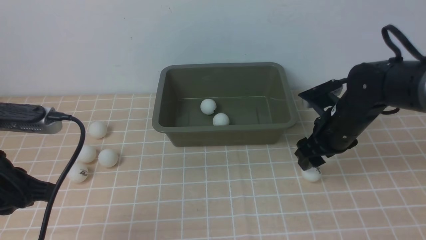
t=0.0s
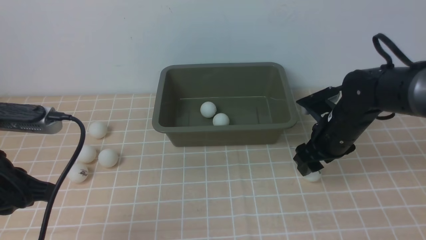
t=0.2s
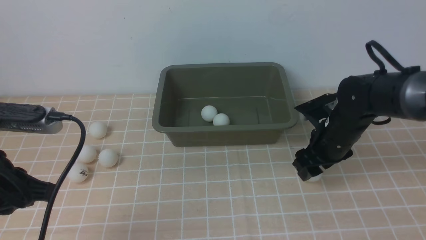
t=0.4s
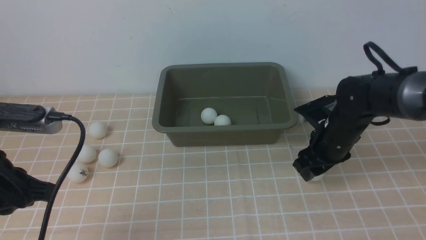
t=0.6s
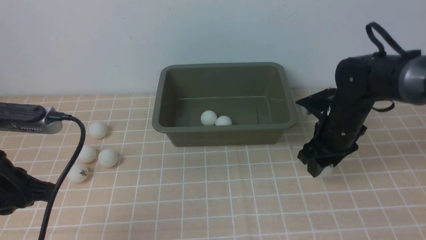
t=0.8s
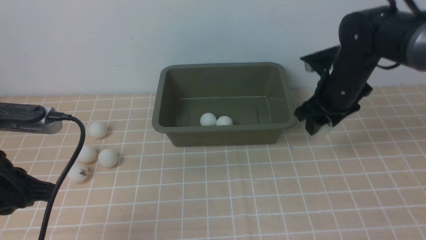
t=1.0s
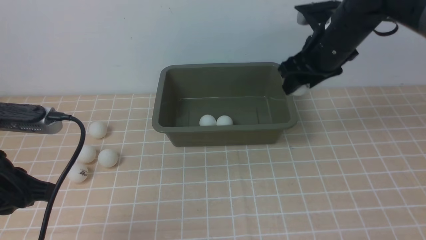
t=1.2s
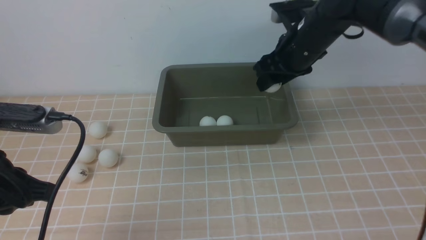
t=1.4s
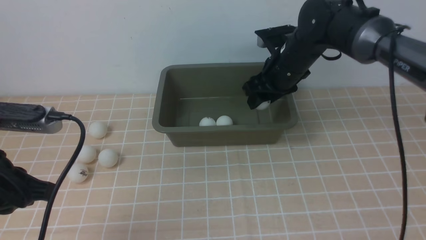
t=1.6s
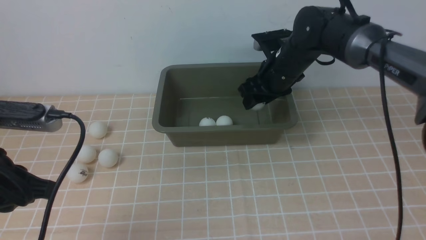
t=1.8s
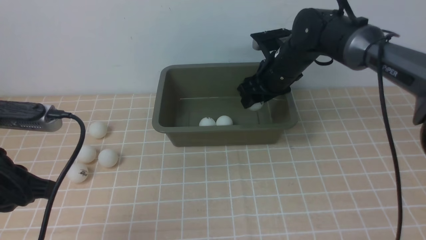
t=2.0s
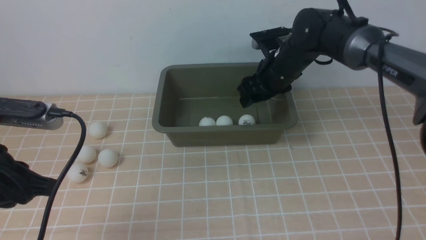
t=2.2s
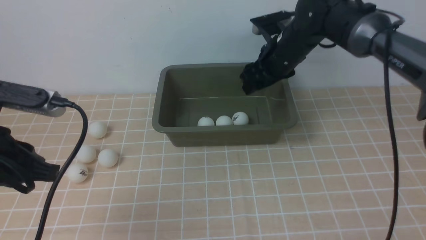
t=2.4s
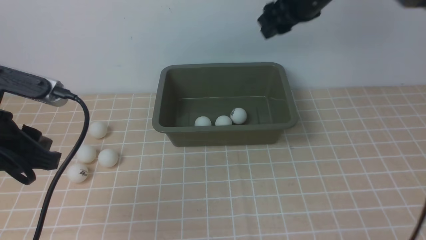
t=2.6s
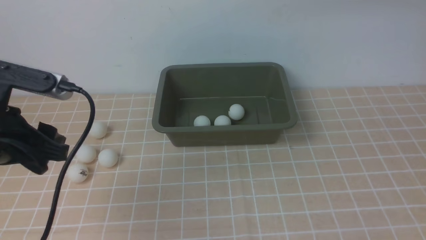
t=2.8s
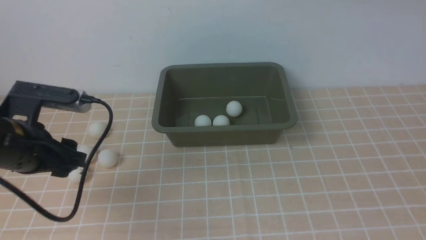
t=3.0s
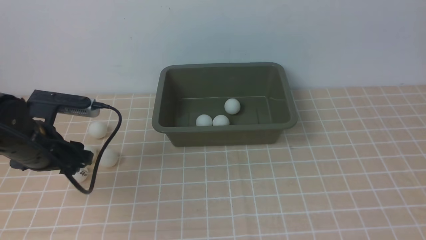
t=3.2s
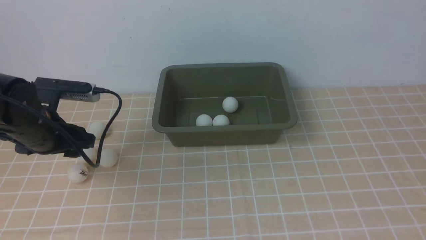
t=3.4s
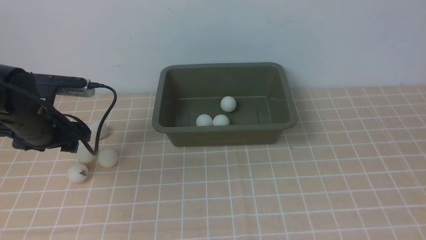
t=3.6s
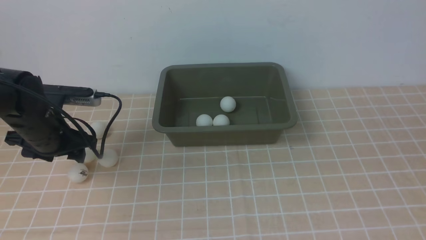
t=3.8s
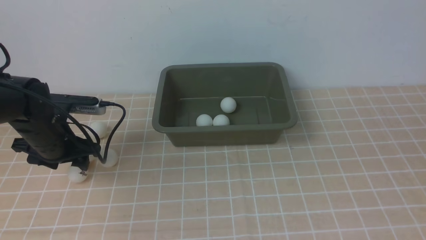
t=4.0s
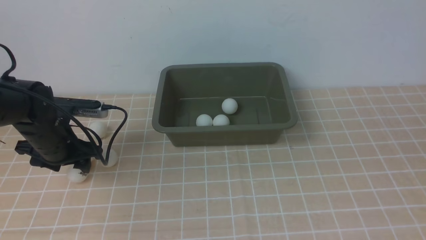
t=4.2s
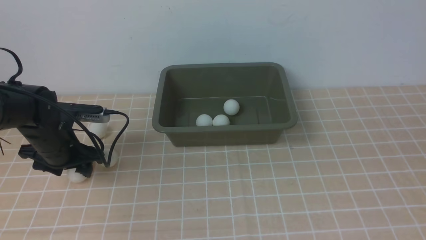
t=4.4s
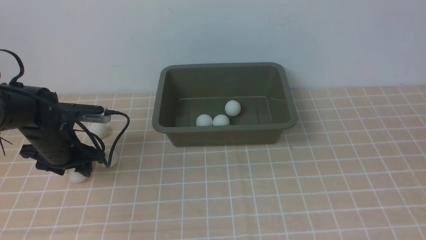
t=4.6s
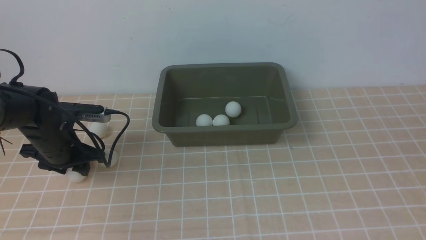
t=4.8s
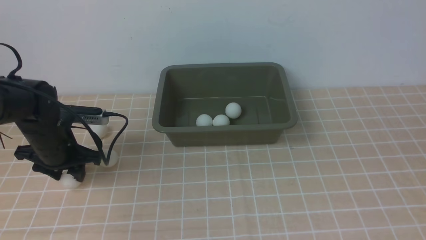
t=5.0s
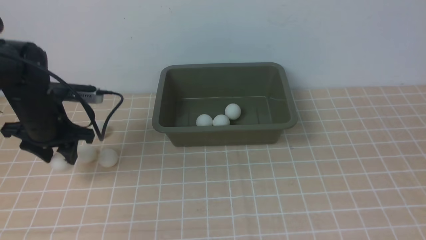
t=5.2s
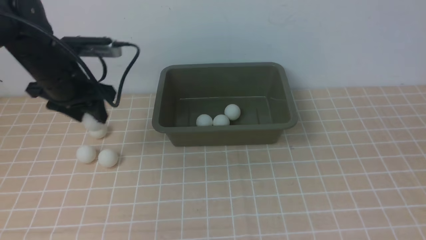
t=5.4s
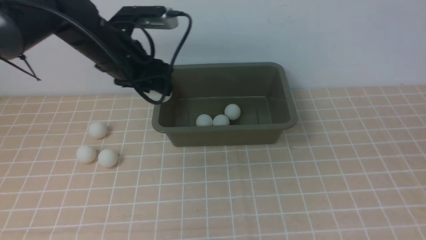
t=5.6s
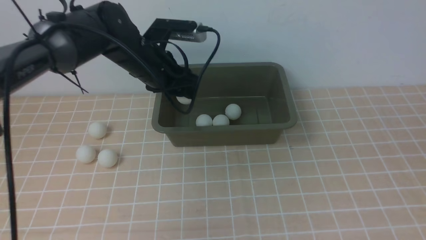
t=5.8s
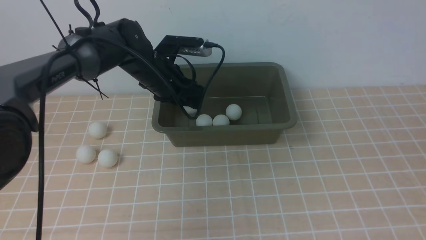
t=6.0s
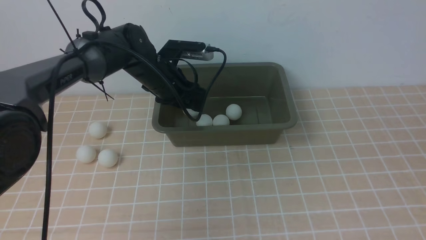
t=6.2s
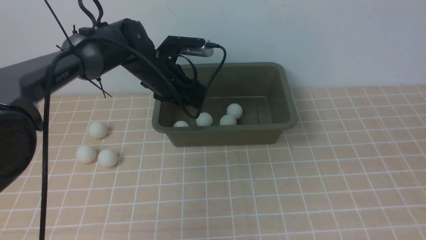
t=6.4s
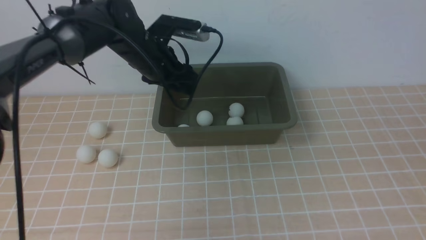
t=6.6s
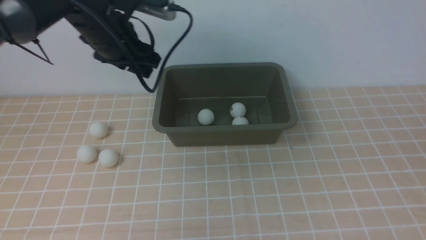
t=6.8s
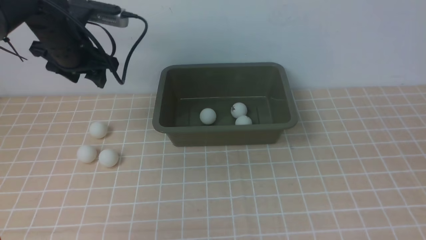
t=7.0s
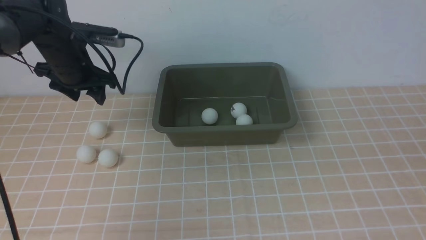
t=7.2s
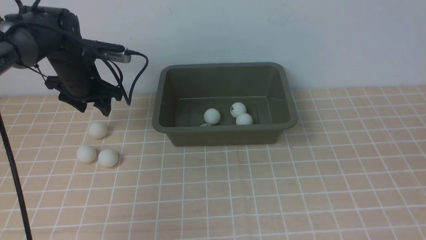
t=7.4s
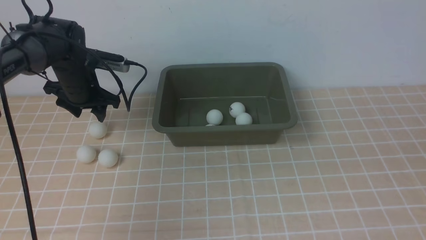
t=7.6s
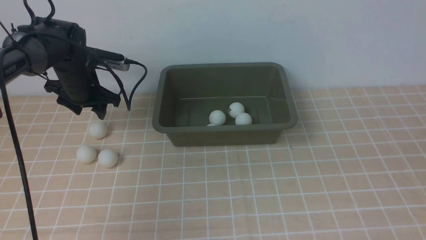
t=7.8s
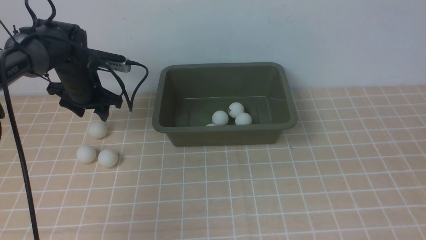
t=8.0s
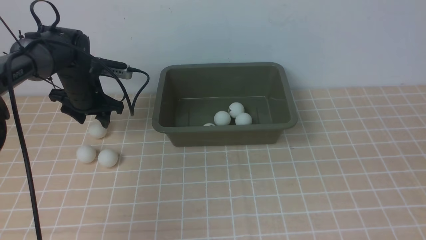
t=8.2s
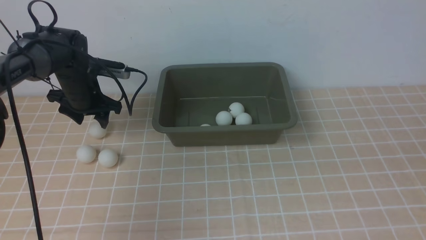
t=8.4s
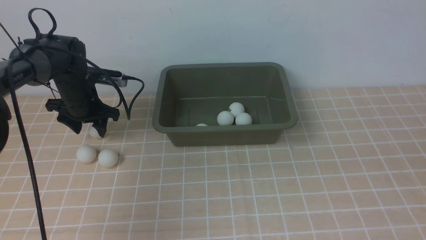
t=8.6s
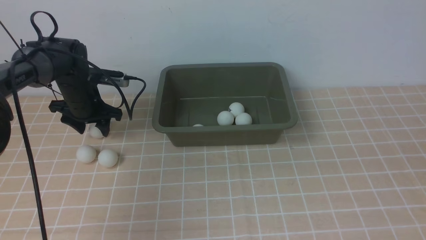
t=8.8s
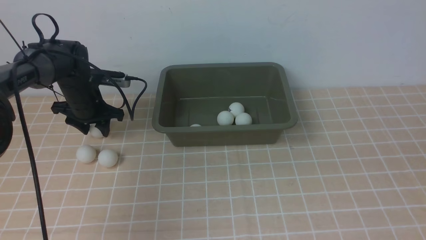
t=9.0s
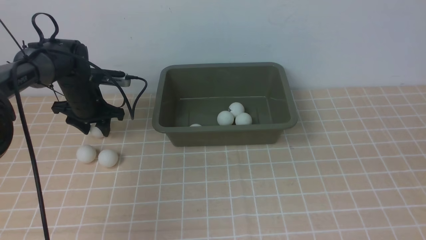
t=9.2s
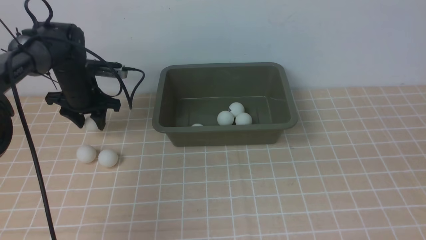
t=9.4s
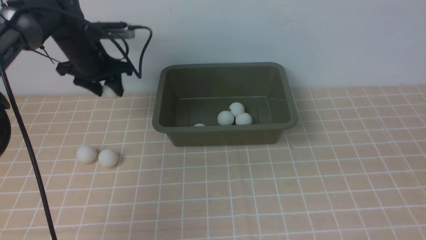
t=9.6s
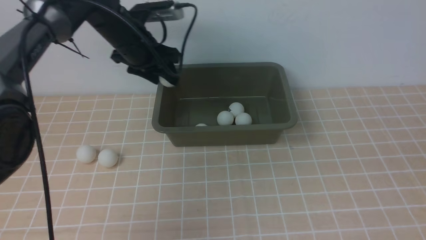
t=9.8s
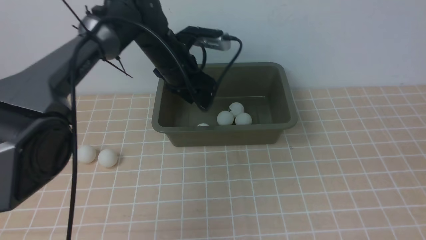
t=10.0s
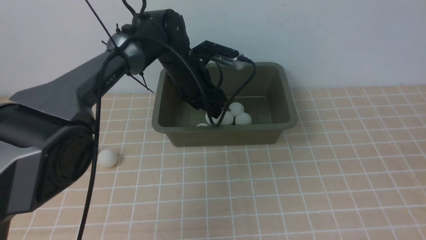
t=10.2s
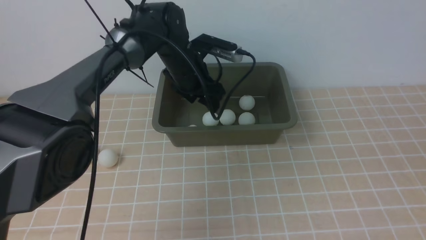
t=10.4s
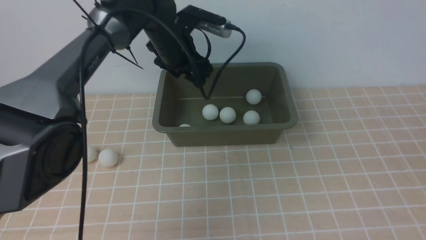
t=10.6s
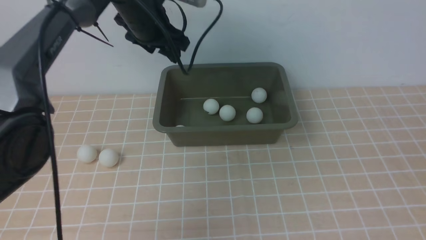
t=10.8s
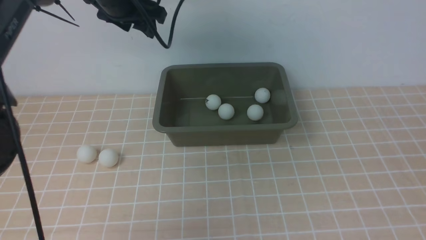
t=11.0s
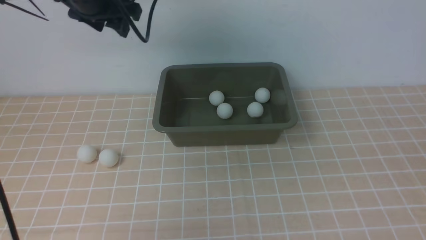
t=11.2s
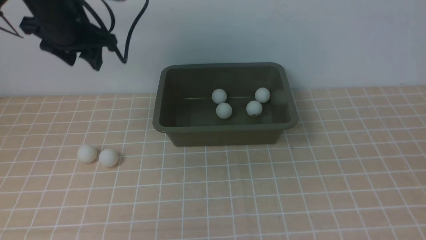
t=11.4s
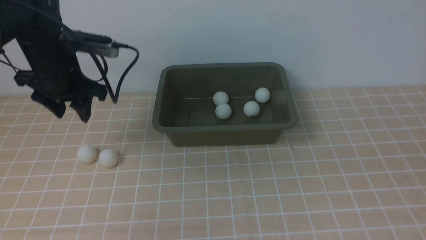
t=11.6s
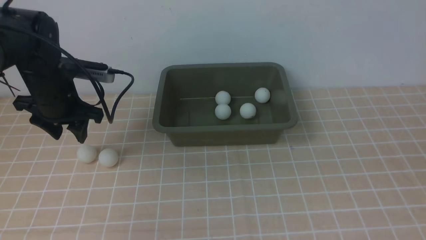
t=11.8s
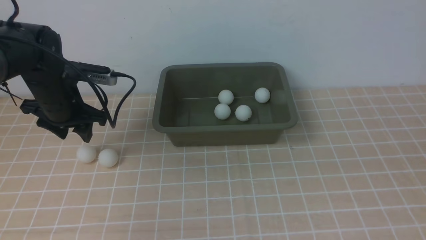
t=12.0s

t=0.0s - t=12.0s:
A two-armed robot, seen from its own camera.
Step, t=1.0s - t=2.0s: use the right arm to put the table tennis ball into the box.
Step, t=2.2s - t=5.0s: use the left arm to clamp the table tennis ball closest to it.
Step, t=5.4s - t=6.4s: use the left arm to put the table tennis ball into the box.
Step, t=6.8s - t=9.4s: use the left arm to clamp the table tennis ball closest to it.
Step, t=9.6s - t=10.4s: use the left arm to put the table tennis ball into the box.
t=0.0s - t=1.6s: The right gripper shifts about 15 cm forward, to the left and upward.
t=1.6s - t=3.0s: The left gripper moves forward, roughly 5 cm, and opens up. Meanwhile the right gripper is displaced upward, backward and to the right by some 30 cm.
t=3.0s - t=4.4s: The left gripper shifts some 15 cm downward and forward.
t=4.4s - t=6.0s: The left gripper moves to the right, forward and upward, about 20 cm.
t=6.0s - t=7.6s: The left gripper travels to the left by about 15 cm.
t=7.6s - t=9.0s: The left gripper goes about 5 cm downward.
t=9.0s - t=10.4s: The left gripper heads to the right, covering some 20 cm.
t=10.4s - t=12.0s: The left gripper shifts about 20 cm to the left and backward.

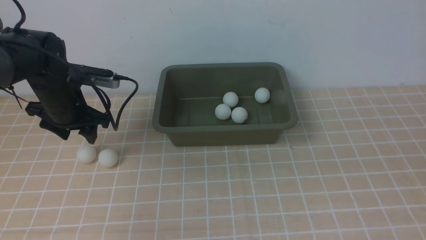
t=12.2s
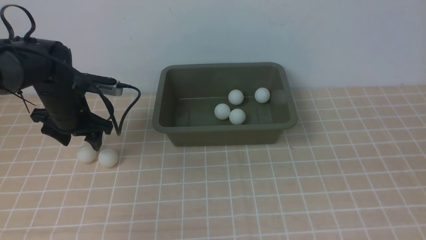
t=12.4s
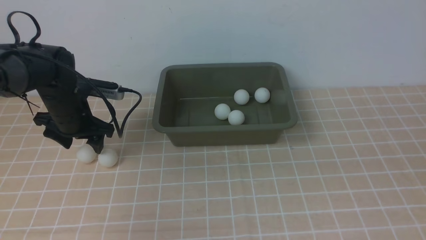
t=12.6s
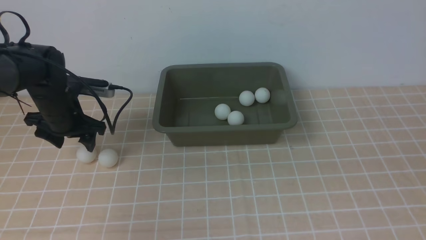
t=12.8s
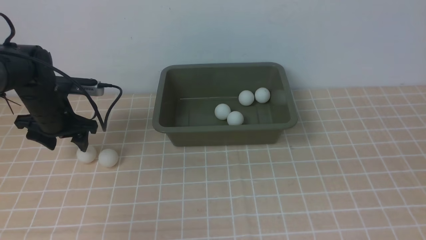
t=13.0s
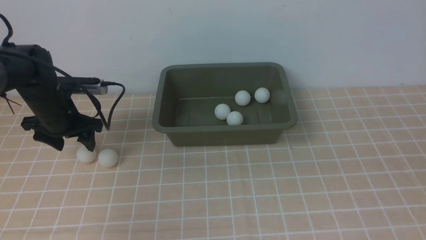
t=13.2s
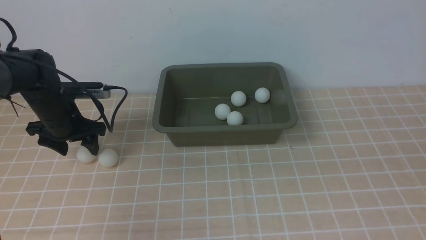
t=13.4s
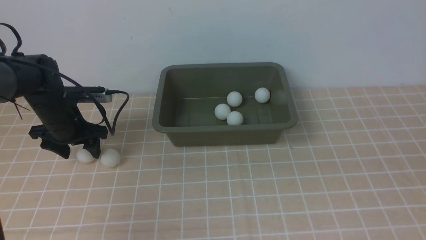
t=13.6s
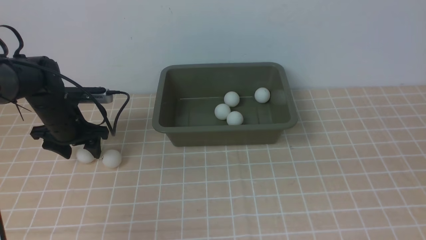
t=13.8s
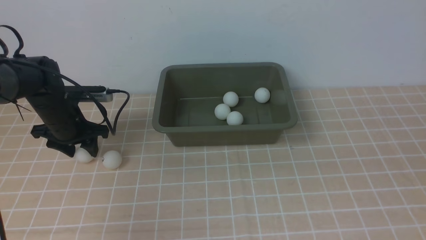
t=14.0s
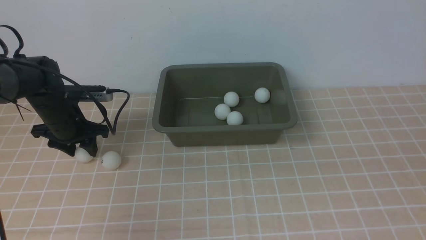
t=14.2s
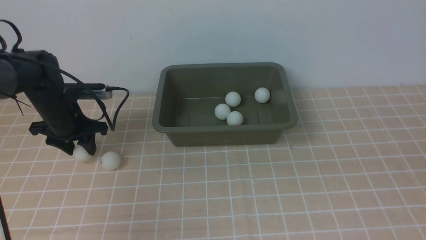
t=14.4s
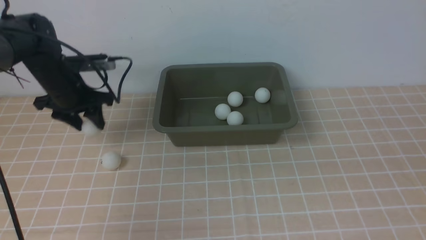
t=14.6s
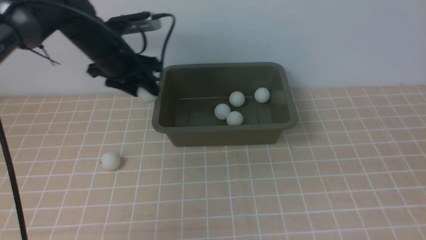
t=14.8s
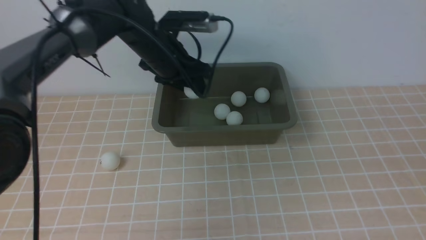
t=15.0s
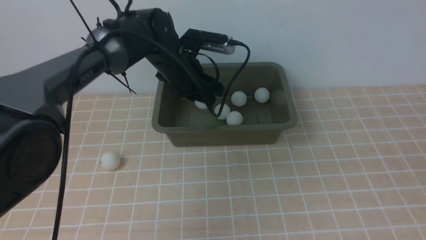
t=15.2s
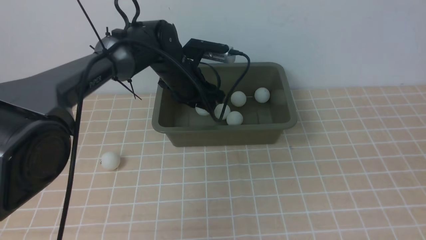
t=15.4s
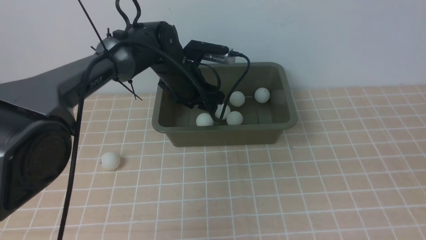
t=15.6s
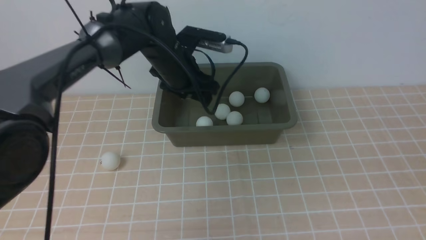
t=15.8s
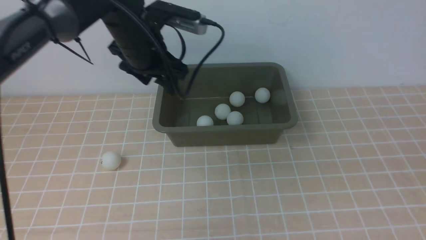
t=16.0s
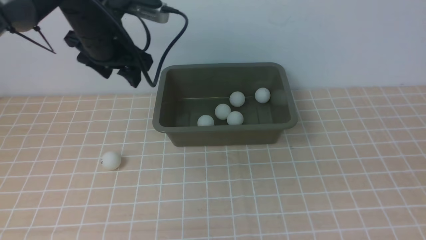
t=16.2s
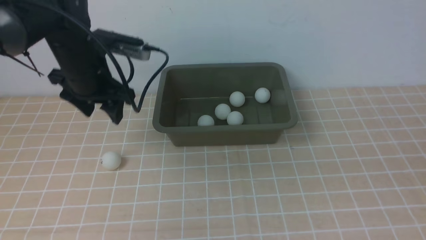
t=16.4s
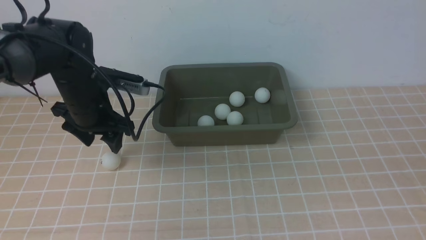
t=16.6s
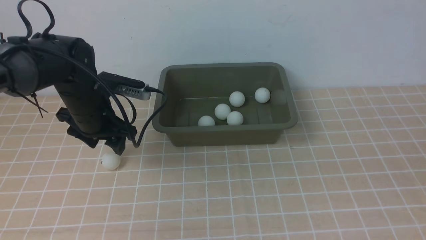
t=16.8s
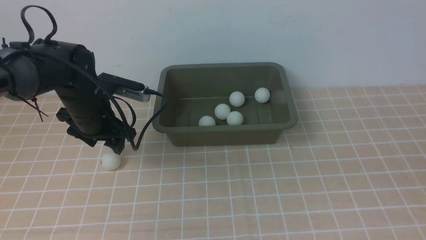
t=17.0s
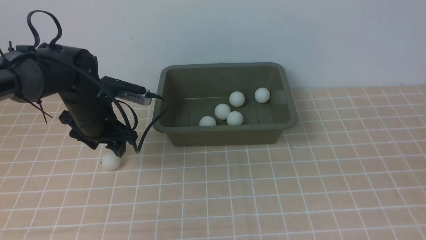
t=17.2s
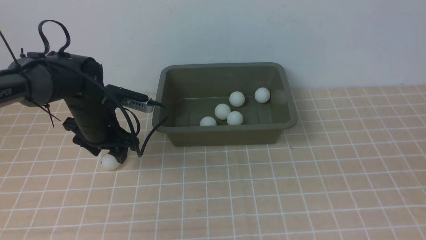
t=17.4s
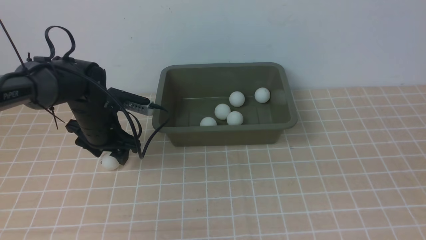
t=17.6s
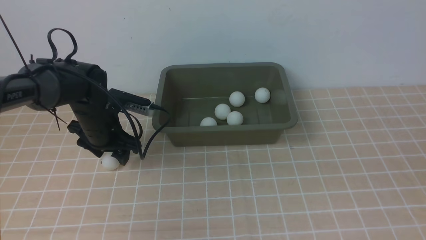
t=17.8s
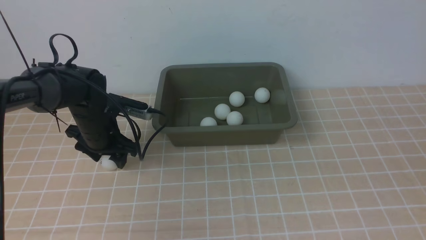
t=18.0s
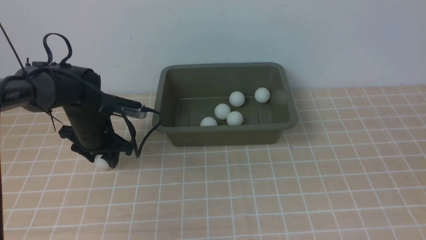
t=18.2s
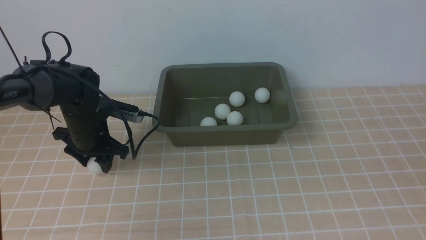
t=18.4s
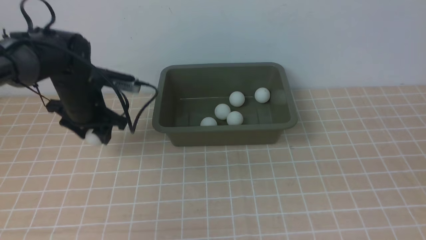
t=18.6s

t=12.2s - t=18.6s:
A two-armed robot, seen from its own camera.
Step, t=12.2s - t=14.6s: use the left arm to clamp the table tennis ball closest to it.
Step, t=14.8s - t=15.8s: use the left arm to put the table tennis ball into the box.
Step, t=16.0s - t=18.6s: use the left arm to clamp the table tennis ball closest to it.
t=12.2s - t=13.8s: The left gripper travels downward by about 5 cm.
t=13.8s - t=15.4s: The left gripper travels to the right by roughly 20 cm.
t=15.4s - t=17.0s: The left gripper travels to the left and backward by some 15 cm.
t=17.0s - t=18.6s: The grippers move only a little.
